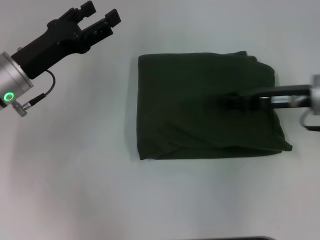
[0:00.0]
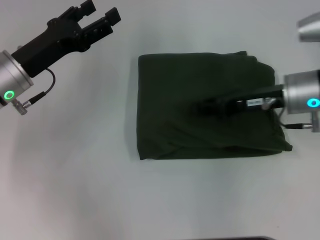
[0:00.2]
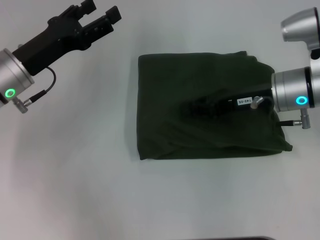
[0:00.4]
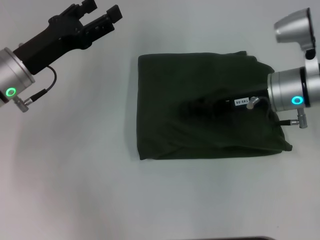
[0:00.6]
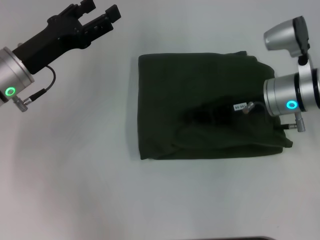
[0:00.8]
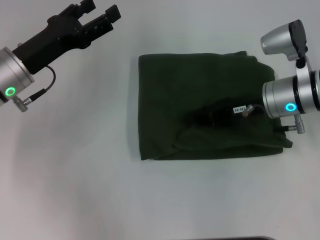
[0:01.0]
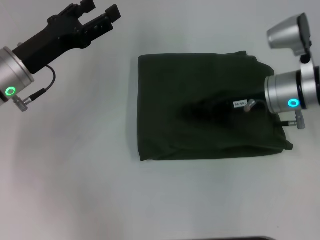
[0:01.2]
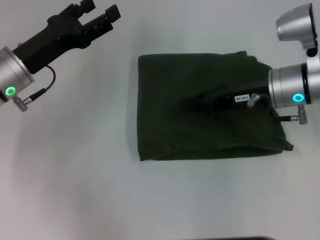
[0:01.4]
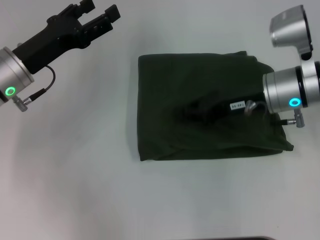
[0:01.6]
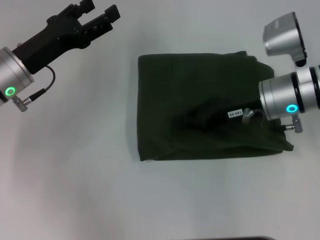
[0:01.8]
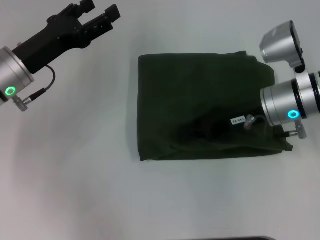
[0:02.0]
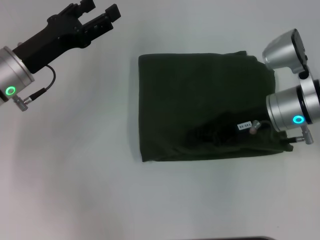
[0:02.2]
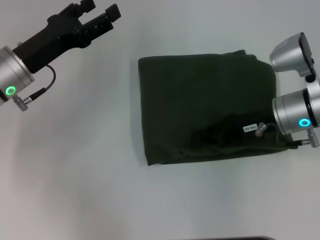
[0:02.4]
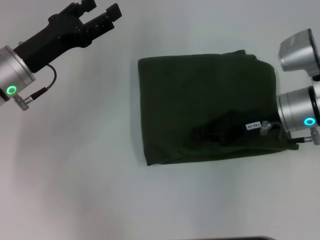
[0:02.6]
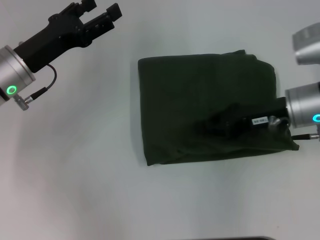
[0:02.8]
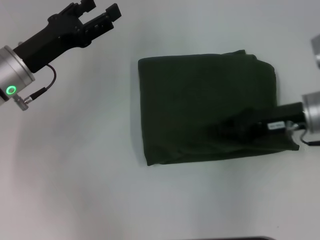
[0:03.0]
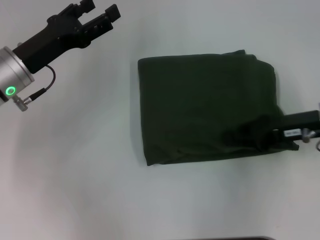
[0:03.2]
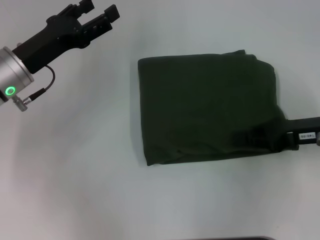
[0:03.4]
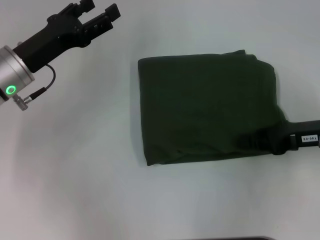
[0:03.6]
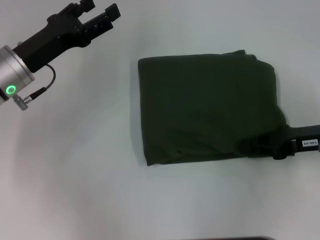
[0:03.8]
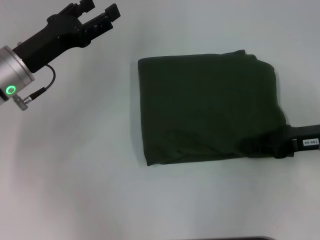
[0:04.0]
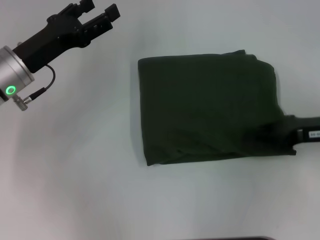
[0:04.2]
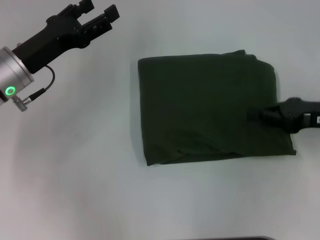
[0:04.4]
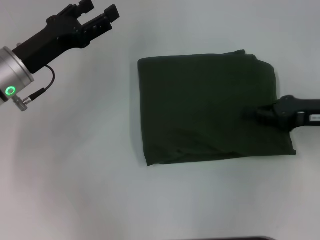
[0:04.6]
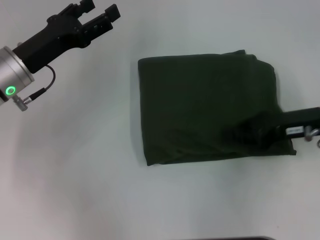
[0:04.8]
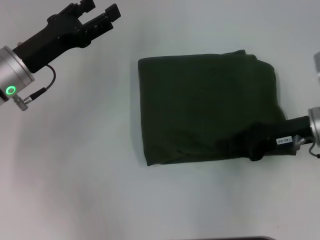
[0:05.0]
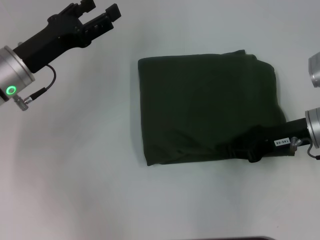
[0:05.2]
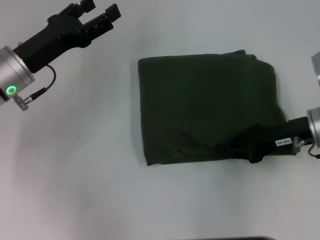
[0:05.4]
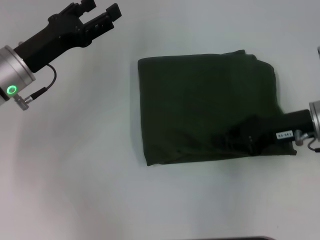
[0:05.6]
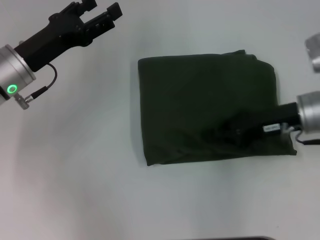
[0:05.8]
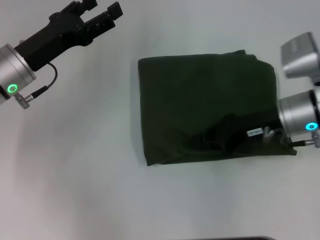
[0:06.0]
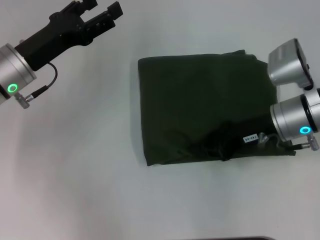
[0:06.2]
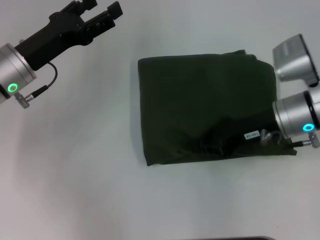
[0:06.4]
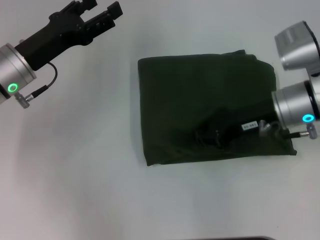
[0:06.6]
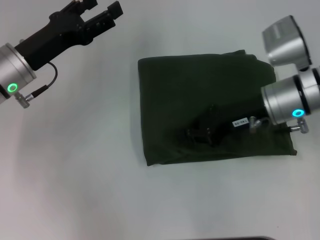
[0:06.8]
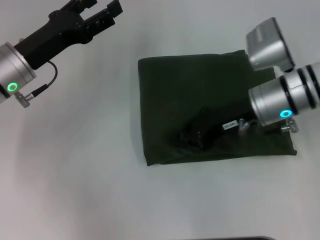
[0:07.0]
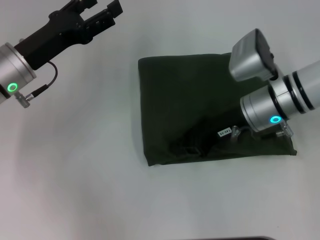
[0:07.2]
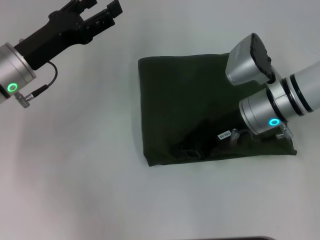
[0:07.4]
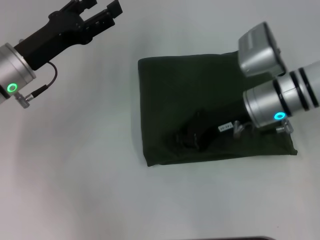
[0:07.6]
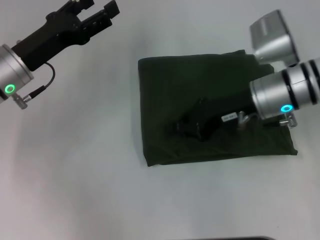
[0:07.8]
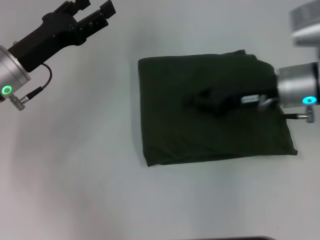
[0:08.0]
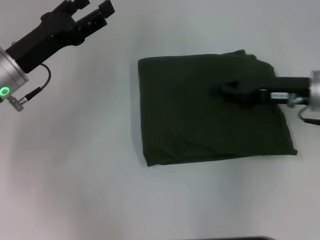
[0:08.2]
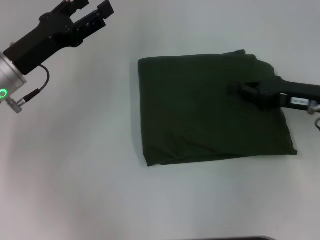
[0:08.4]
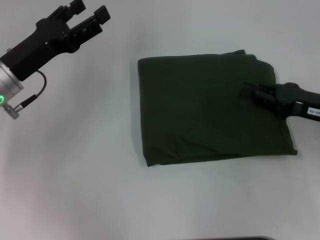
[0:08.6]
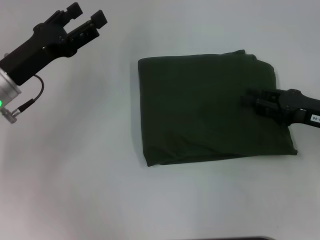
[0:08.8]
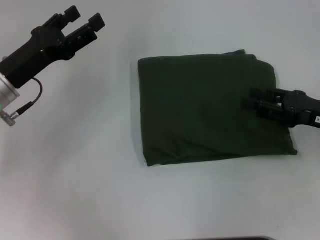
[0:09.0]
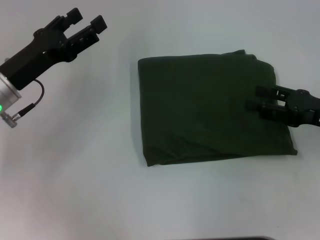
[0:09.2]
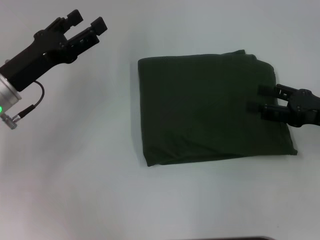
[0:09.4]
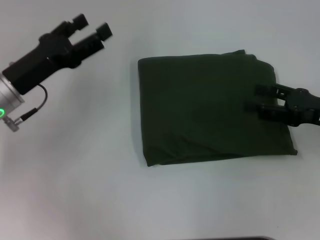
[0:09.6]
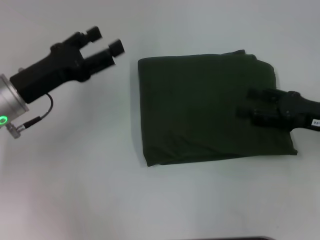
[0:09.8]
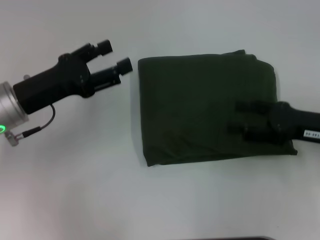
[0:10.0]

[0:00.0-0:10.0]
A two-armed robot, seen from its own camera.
0:00.0 to 0:02.8: The grippers move only a little.
0:02.8 to 0:04.2: The right gripper heads to the right, covering roughly 10 cm.
0:04.2 to 0:05.8: The right gripper goes roughly 5 cm to the left.
0:05.8 to 0:07.2: The right gripper is displaced to the left by some 5 cm.
0:07.2 to 0:08.6: The right gripper heads to the right and backward, covering roughly 15 cm.
0:08.6 to 0:10.0: The right gripper opens up.

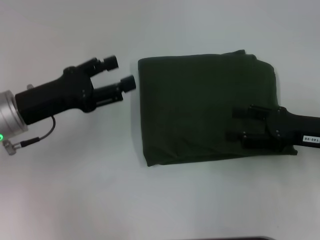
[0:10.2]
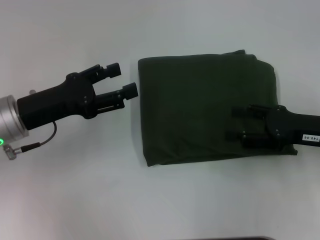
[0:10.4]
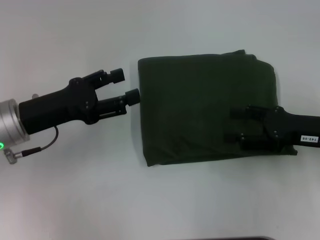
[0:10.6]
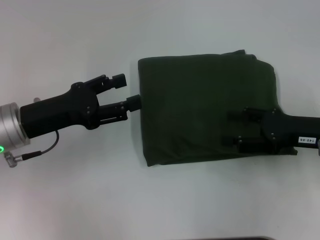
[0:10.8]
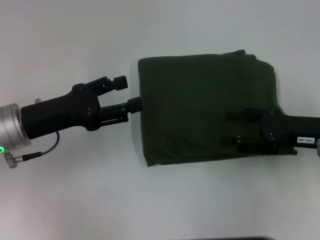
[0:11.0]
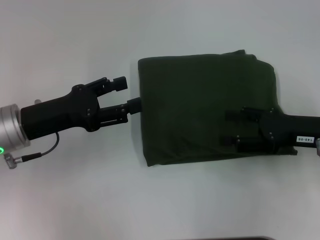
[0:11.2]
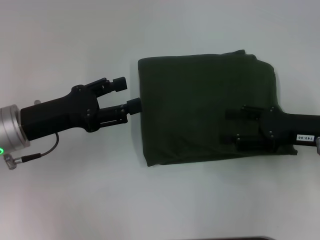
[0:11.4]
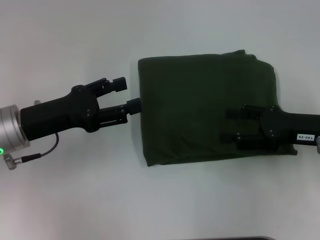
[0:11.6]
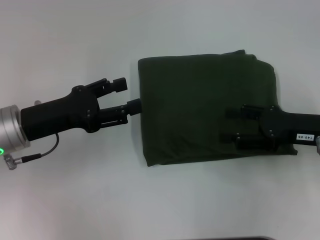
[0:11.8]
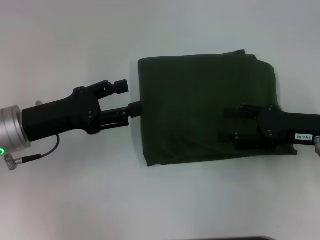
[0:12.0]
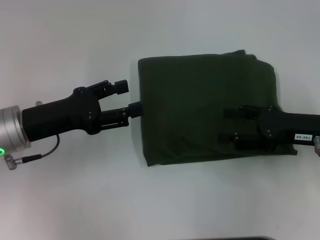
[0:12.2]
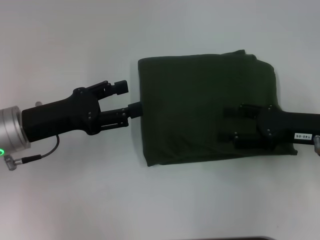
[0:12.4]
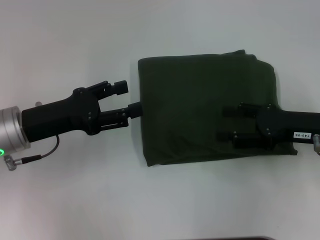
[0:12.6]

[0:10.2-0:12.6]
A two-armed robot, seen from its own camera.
0:10.2 to 0:11.4: The grippers make only small movements.
0:11.4 to 0:12.6: Neither gripper changes place.

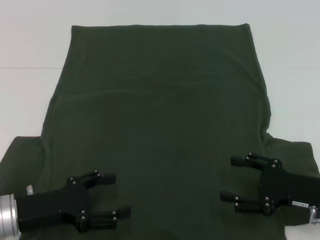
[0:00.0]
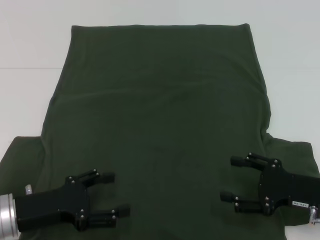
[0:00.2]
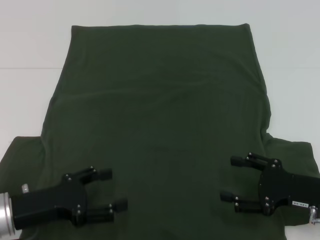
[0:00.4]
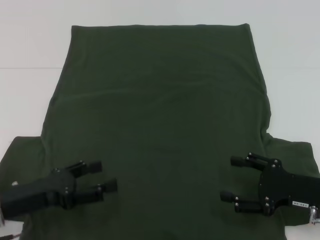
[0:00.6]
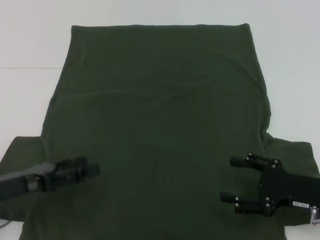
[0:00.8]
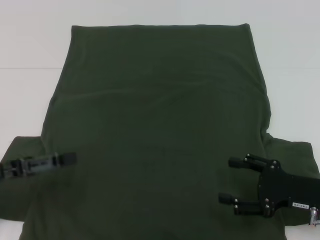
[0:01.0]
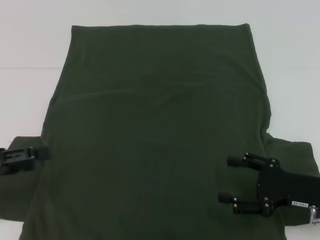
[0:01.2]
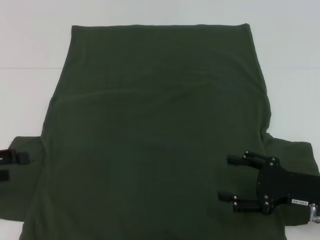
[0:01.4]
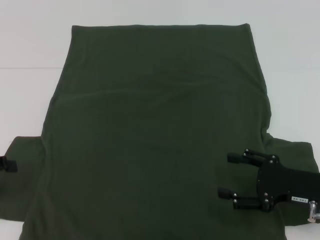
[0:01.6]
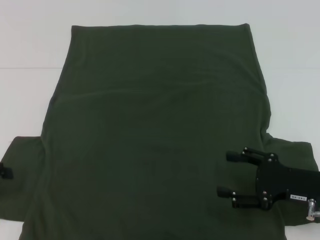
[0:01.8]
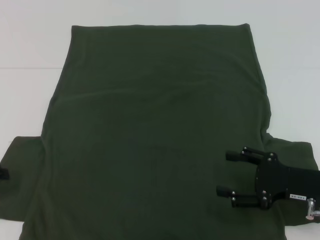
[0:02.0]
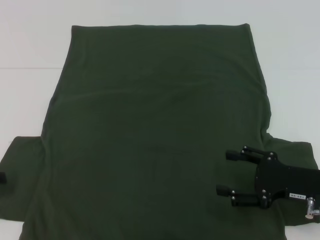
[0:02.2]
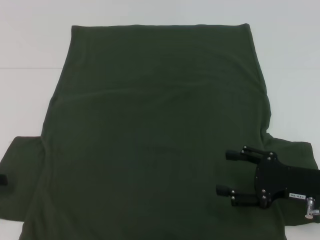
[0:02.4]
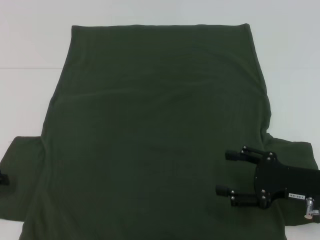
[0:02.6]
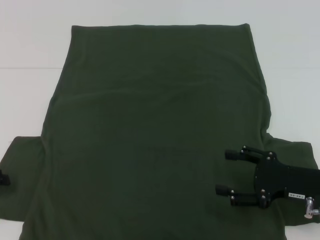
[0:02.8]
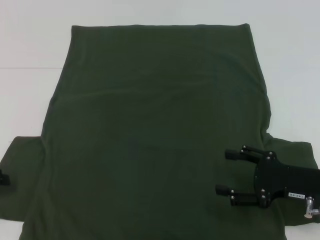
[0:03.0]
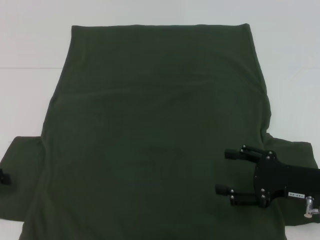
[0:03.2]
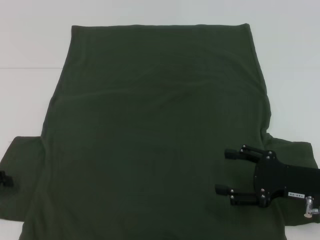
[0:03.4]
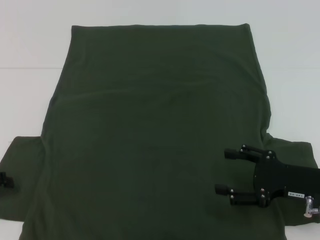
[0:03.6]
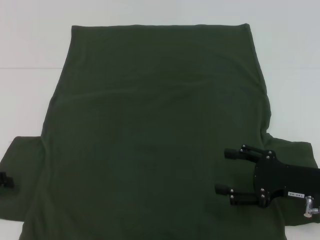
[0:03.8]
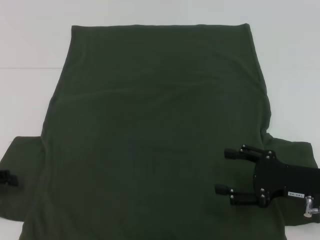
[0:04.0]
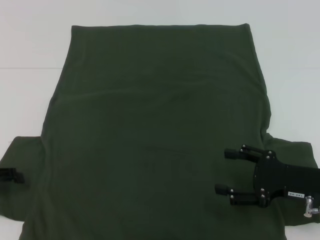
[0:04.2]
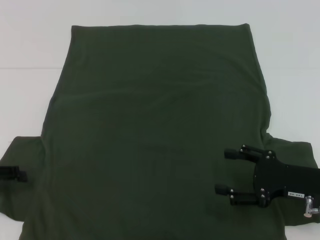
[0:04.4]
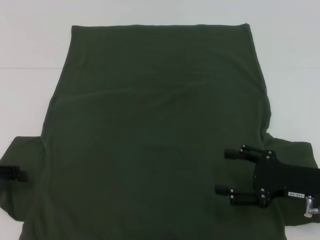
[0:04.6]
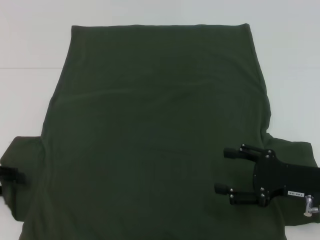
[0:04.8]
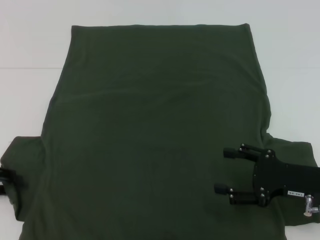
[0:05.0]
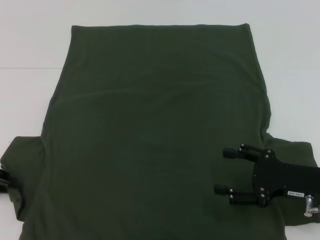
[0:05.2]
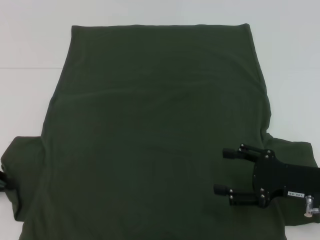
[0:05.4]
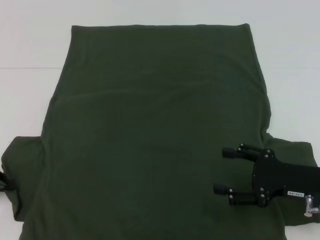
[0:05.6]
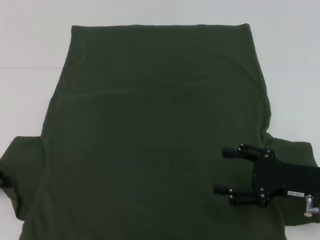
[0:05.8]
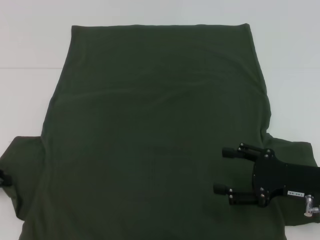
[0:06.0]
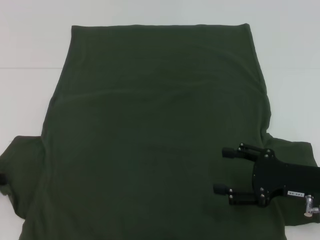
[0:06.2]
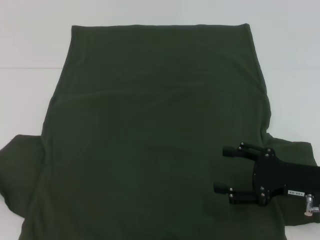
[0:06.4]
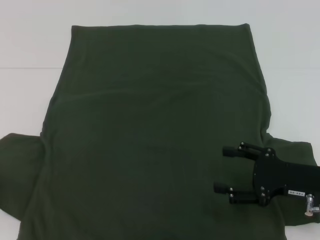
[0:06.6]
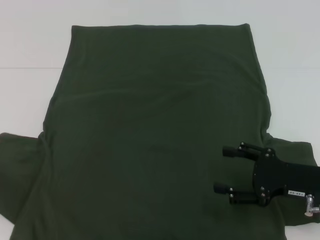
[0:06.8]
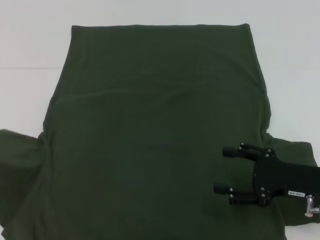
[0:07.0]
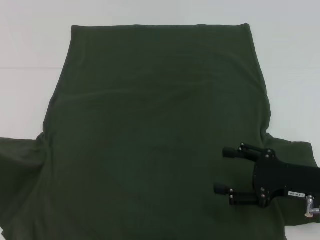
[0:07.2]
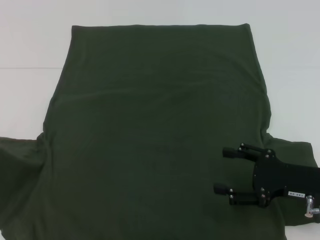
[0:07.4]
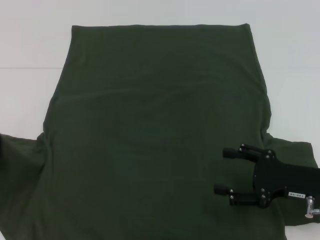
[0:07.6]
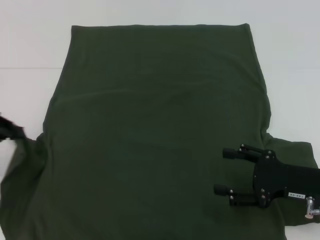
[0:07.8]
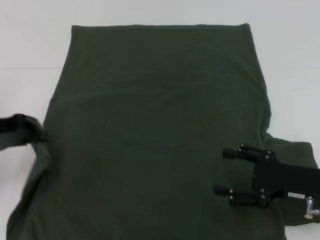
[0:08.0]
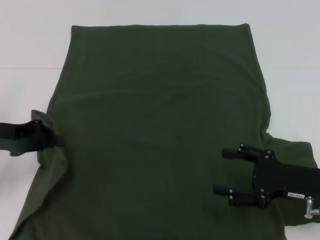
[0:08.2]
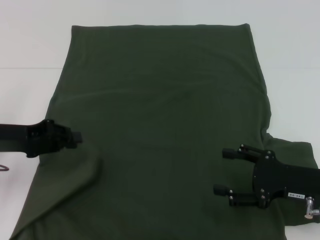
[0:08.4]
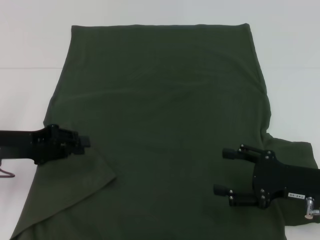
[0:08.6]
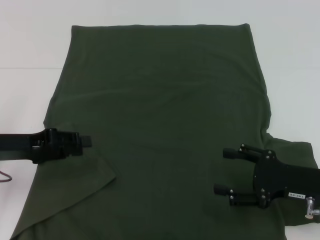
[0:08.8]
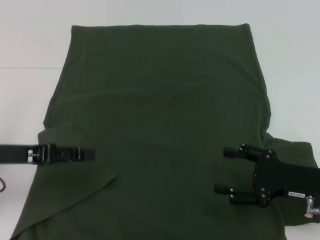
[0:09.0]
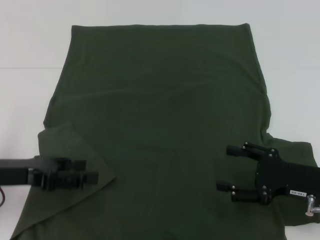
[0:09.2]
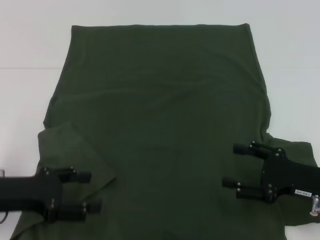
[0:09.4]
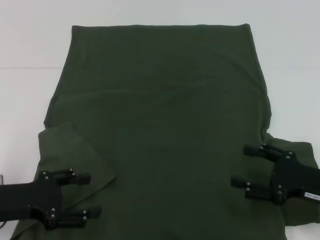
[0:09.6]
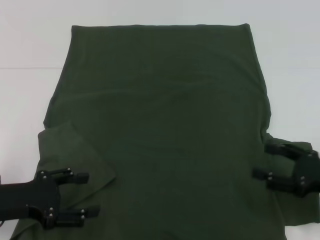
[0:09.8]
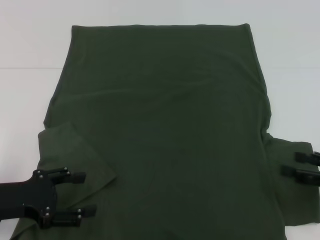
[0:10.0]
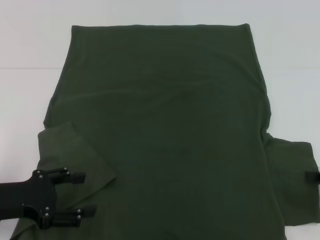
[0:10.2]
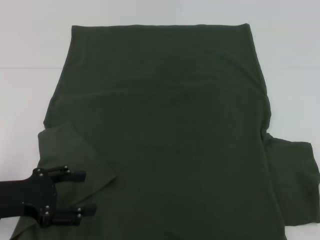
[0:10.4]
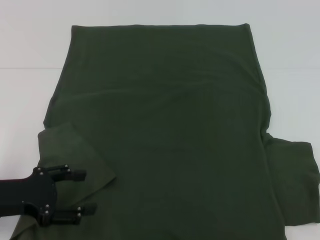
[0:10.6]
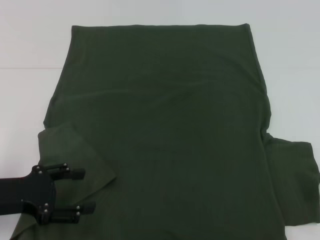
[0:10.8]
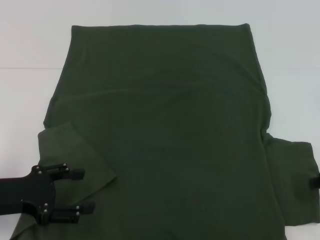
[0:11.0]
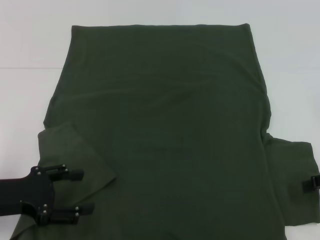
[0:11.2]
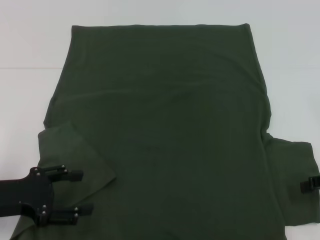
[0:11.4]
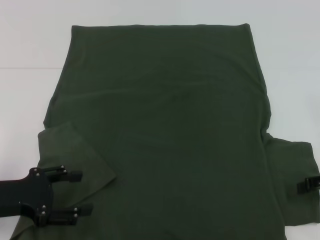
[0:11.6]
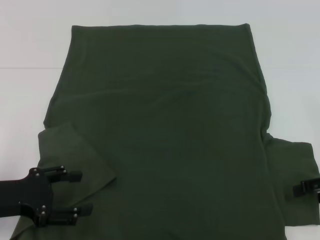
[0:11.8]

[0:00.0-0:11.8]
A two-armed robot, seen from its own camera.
Step, 0:00.0 to 0:09.0: Fold the bottom left sleeve with your left hand.
0:00.0 to 0:01.4: The left gripper goes about 15 cm to the left and upward.
0:04.4 to 0:06.0: The left gripper closes.
0:06.0 to 0:07.4: The left gripper shifts some 5 cm upward.
0:07.4 to 0:08.8: The left gripper is displaced to the right and downward by approximately 10 cm.
0:08.8 to 0:10.4: The left gripper heads backward, covering about 5 cm, and opens its fingers, while the right gripper moves to the right and upward, roughly 15 cm.
